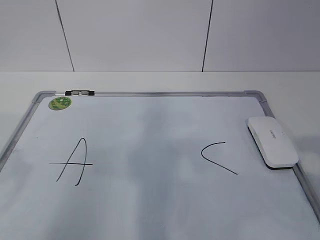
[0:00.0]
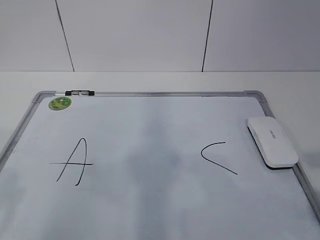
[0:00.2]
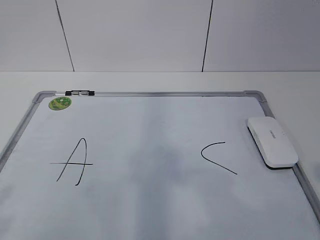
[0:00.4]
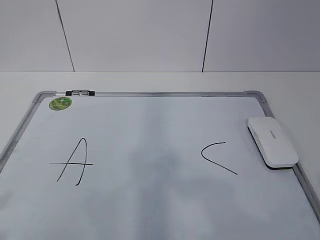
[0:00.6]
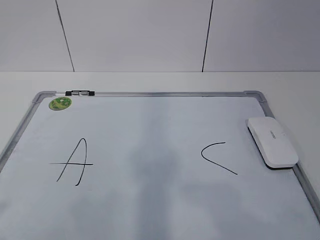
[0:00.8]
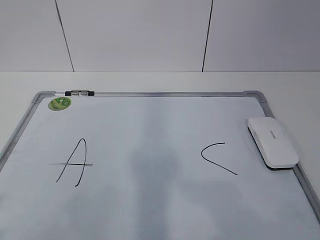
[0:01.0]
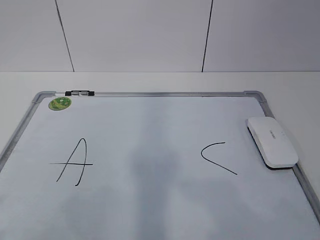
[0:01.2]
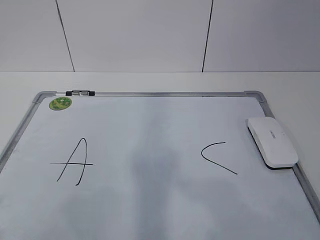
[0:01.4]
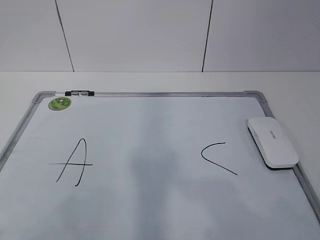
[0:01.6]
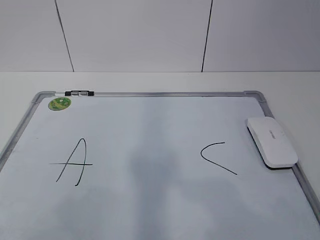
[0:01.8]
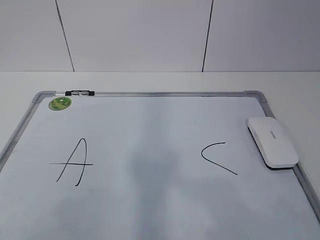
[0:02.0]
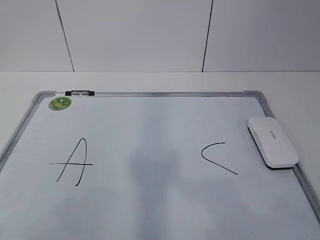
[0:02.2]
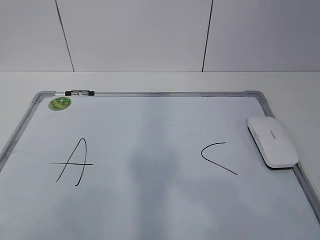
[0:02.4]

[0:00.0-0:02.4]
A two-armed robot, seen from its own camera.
Task of the whole recording: pick up the eraser on the blackboard and erase the letter "B".
0:01.2 to 0:02.4: The two grippers keep their place.

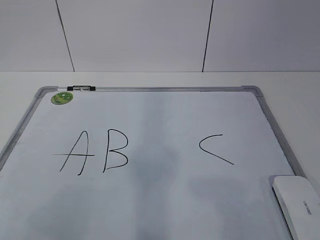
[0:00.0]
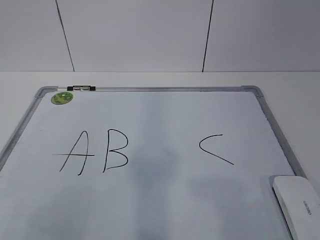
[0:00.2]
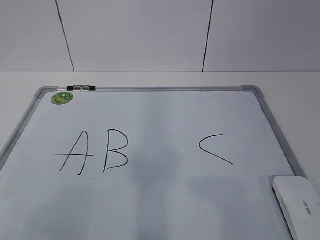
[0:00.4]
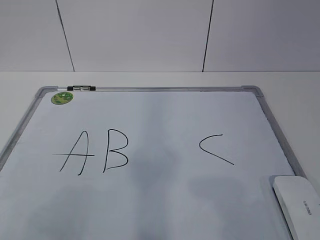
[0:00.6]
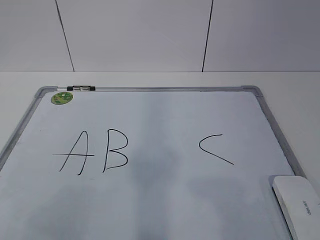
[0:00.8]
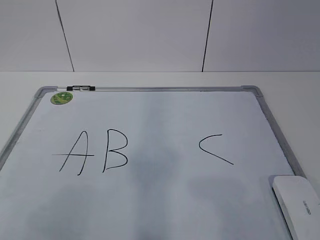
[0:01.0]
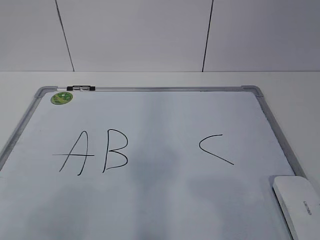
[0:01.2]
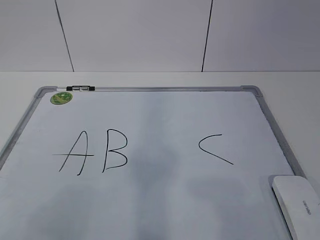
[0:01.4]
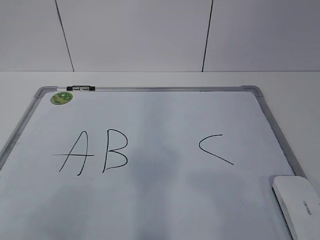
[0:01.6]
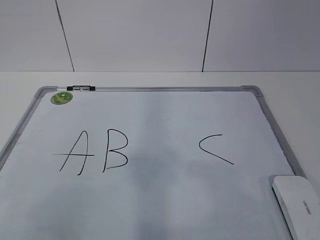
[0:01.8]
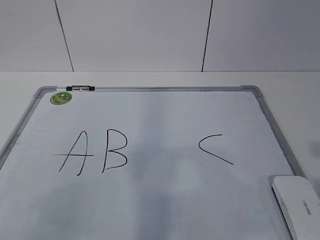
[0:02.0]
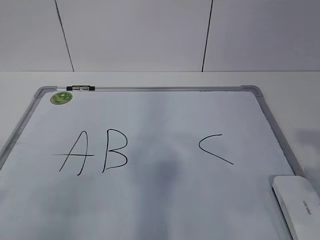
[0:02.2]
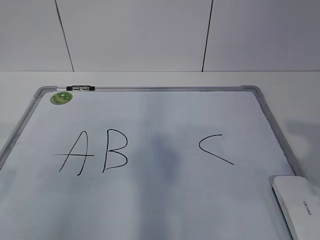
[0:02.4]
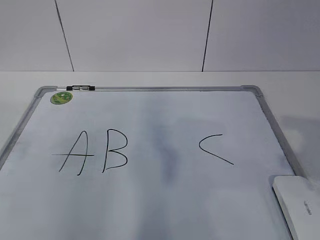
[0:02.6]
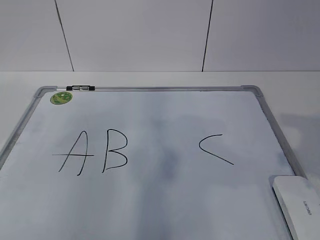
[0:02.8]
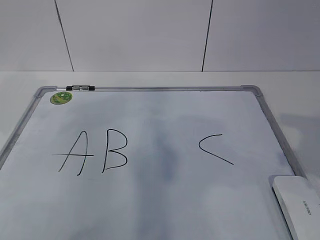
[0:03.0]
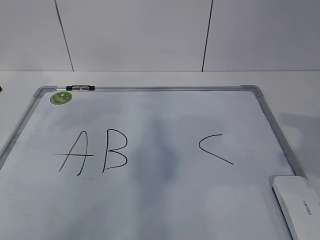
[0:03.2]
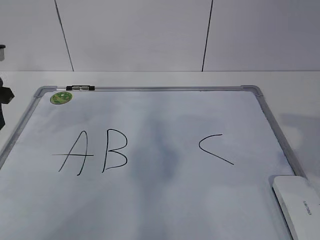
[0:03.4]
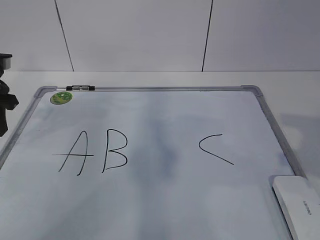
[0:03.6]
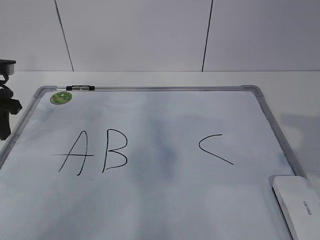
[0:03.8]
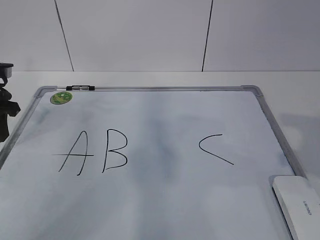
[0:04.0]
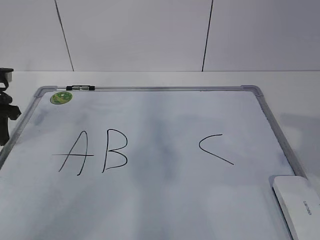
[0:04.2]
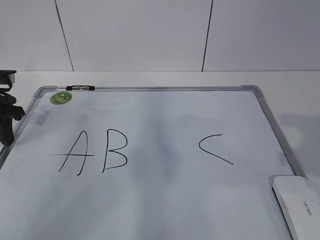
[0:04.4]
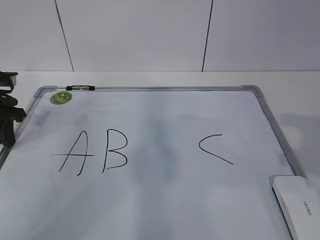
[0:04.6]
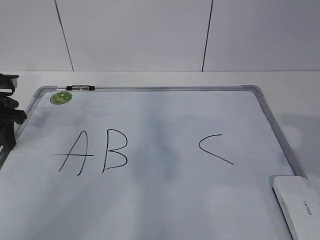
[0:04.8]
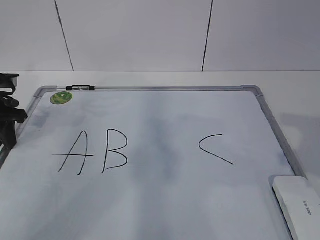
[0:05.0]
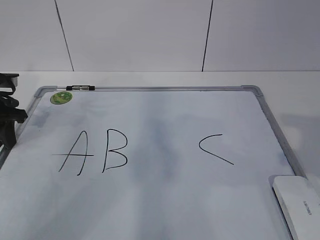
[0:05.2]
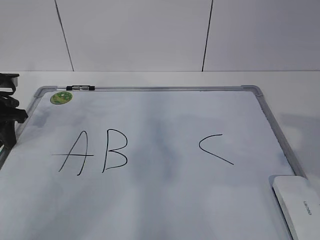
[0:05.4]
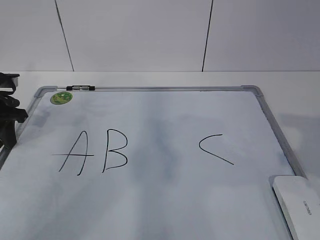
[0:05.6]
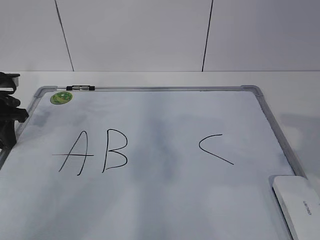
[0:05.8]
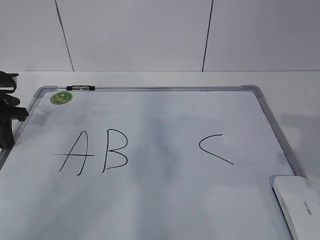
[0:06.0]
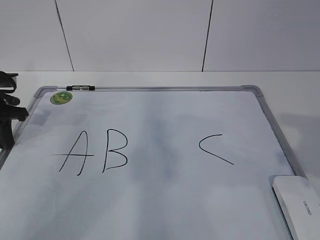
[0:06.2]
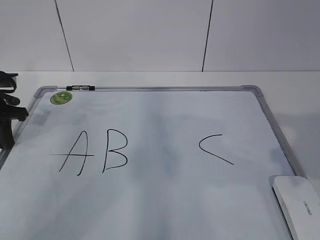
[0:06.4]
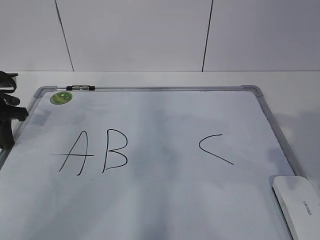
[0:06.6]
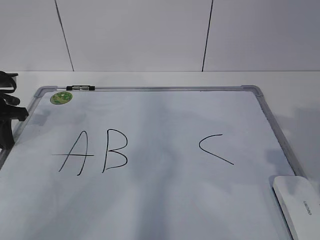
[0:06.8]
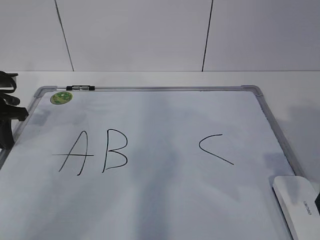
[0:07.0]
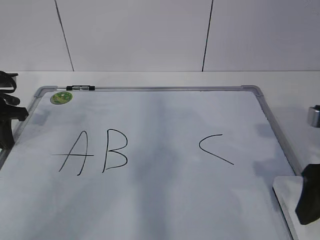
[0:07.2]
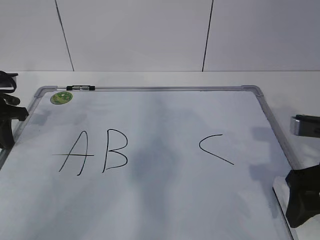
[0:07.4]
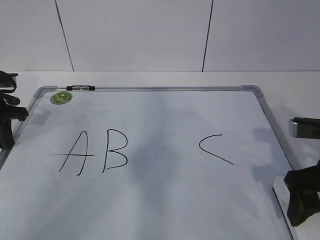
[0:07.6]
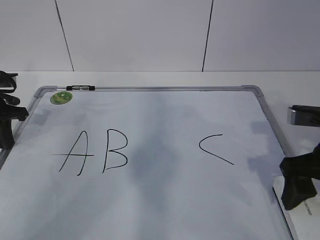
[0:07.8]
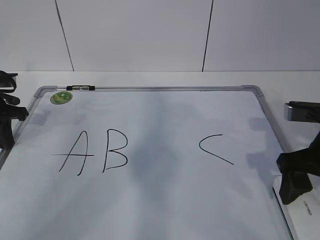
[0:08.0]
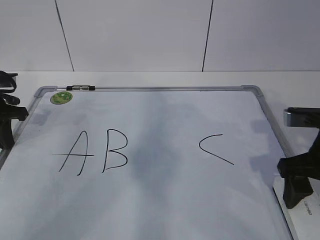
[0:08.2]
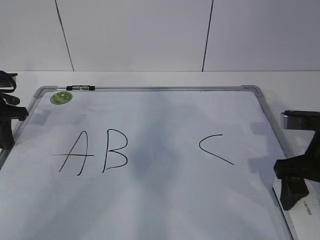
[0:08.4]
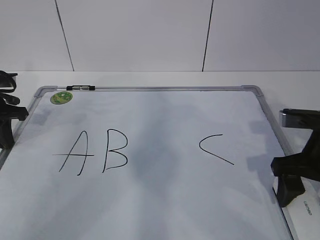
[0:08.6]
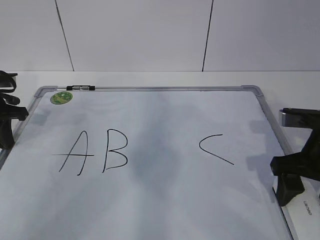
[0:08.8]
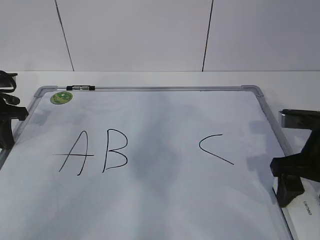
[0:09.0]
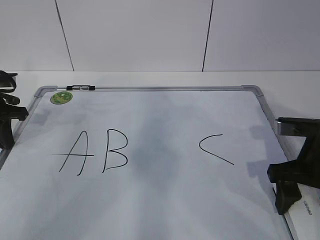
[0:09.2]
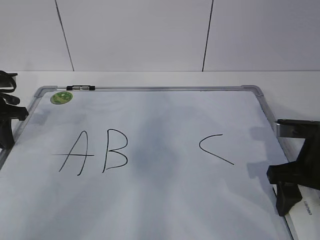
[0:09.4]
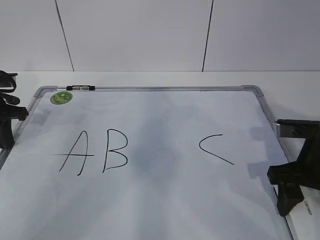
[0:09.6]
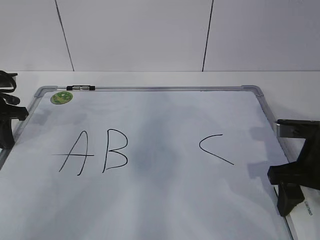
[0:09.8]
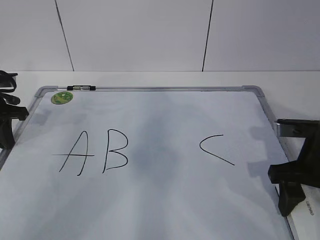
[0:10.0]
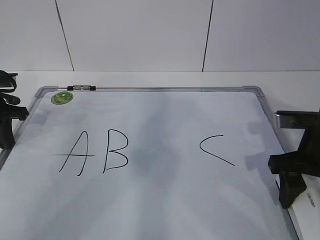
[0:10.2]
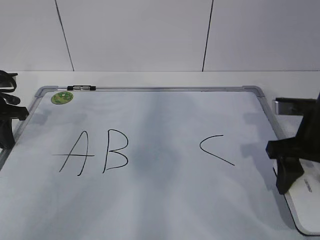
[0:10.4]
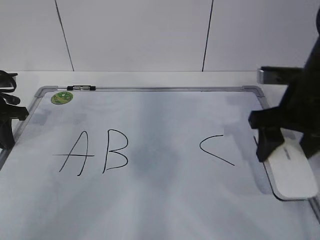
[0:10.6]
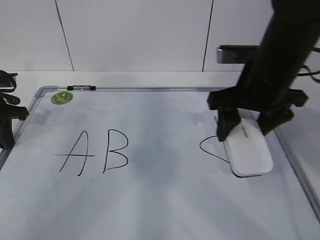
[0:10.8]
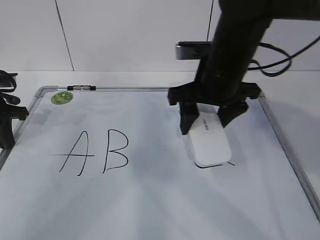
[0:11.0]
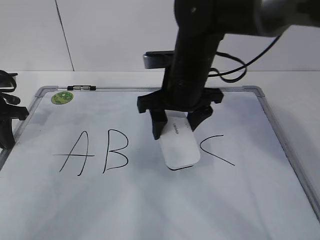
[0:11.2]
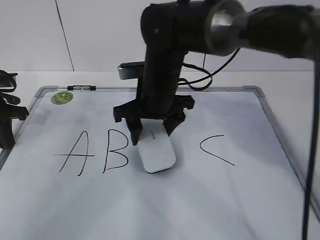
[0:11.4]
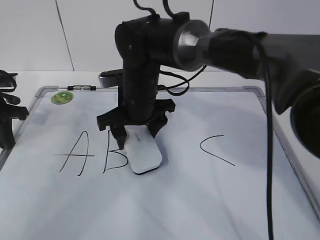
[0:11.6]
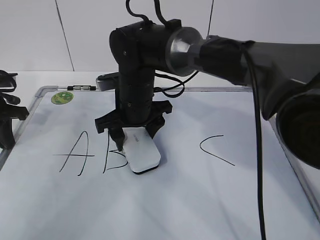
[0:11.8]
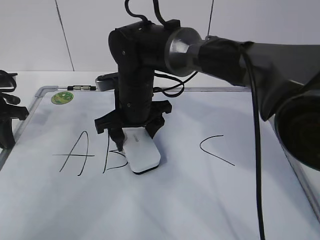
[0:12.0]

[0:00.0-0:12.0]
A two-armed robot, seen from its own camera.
Task of the whole recording: pick up the eraser on the blackboard and erase the letter "B".
Step, 0:05.2 to 0:08.0: Grab the eraser with your right hand.
0:03.0 to 0:04.4: The left gripper shifts approximately 15 cm downward and forward.
0:04.4 to 0:06.0: The left gripper closes.
0:06.0 to 0:07.6: The right gripper travels downward and forward by about 15 cm, and opens.
0:07.6 to 0:09.0: The grippers make only small movements.
0:09.0 to 0:10.4: The right gripper closes.
0:10.4 to 0:12.0: The right gripper heads to the left and forward, covering approximately 30 cm.

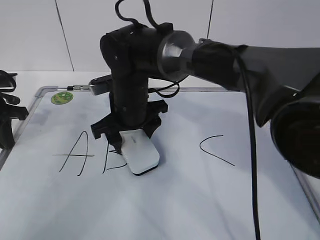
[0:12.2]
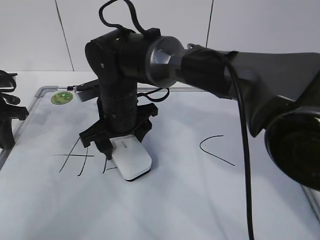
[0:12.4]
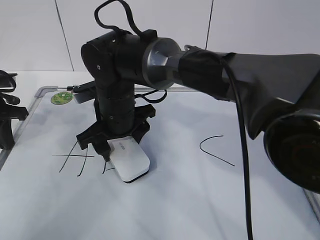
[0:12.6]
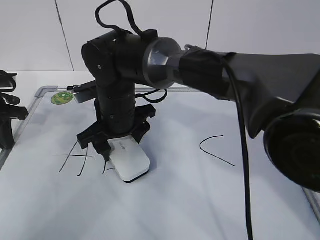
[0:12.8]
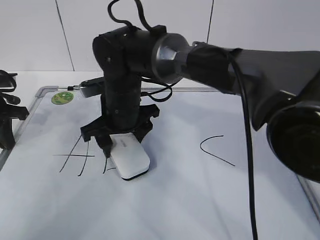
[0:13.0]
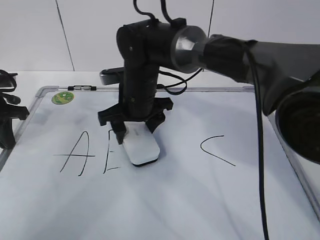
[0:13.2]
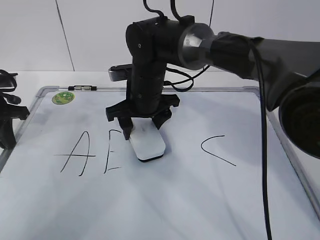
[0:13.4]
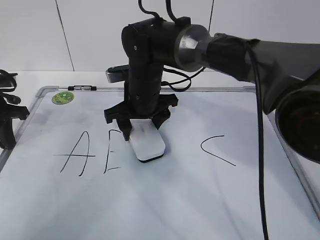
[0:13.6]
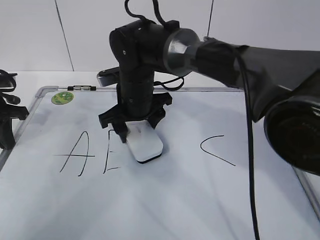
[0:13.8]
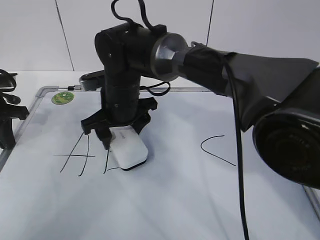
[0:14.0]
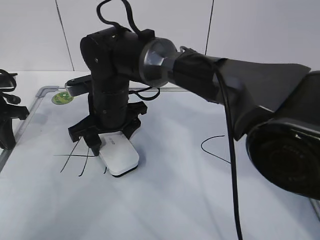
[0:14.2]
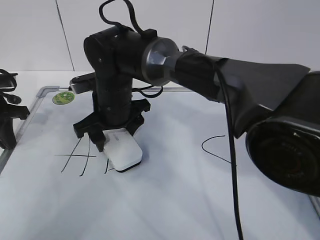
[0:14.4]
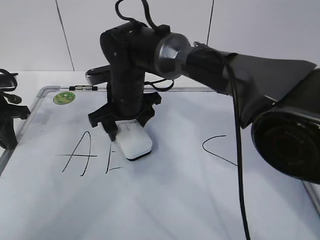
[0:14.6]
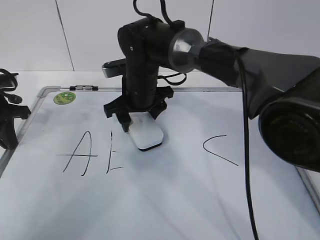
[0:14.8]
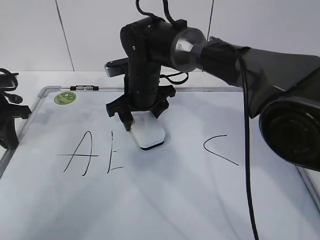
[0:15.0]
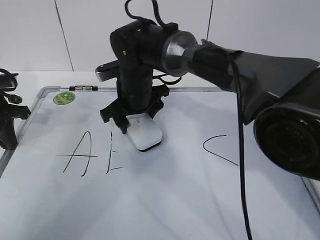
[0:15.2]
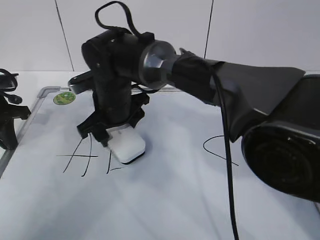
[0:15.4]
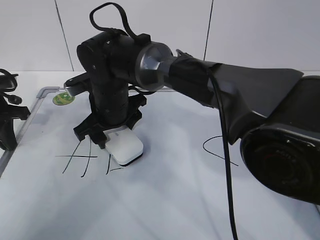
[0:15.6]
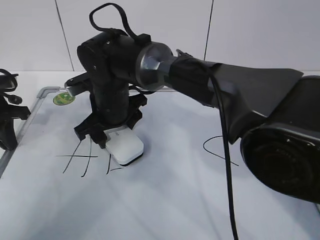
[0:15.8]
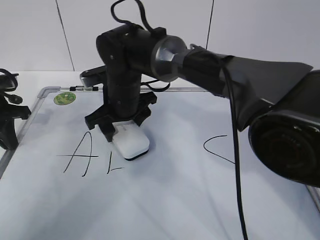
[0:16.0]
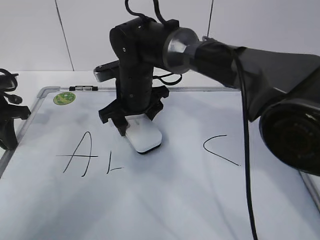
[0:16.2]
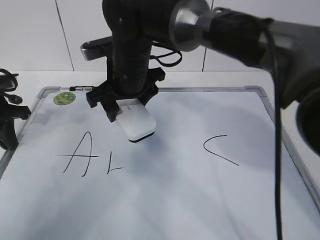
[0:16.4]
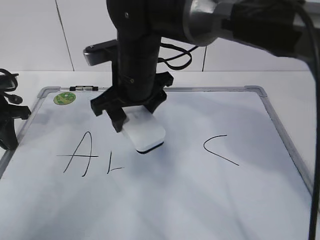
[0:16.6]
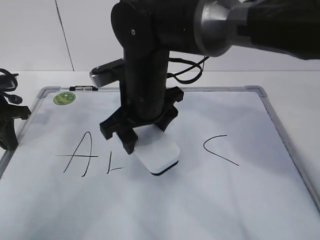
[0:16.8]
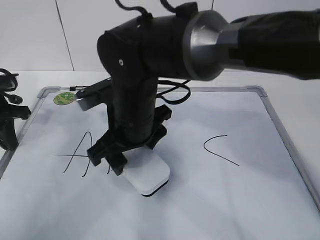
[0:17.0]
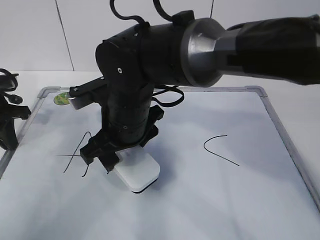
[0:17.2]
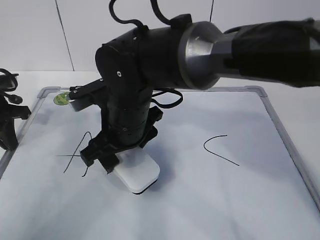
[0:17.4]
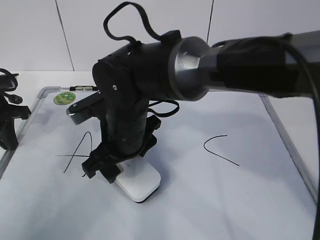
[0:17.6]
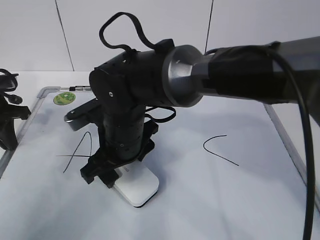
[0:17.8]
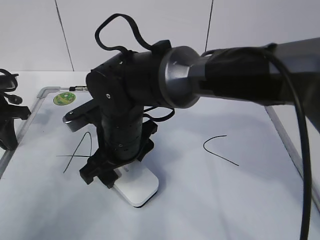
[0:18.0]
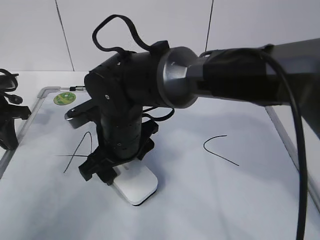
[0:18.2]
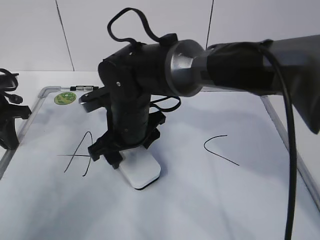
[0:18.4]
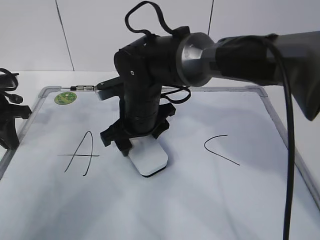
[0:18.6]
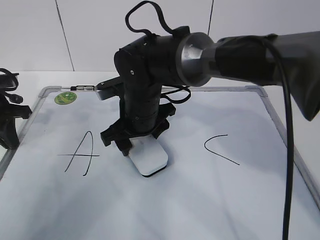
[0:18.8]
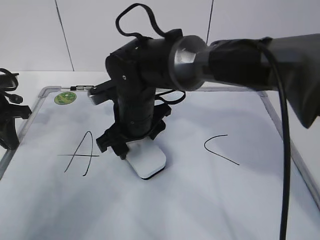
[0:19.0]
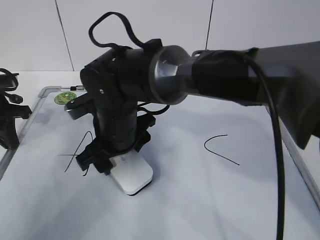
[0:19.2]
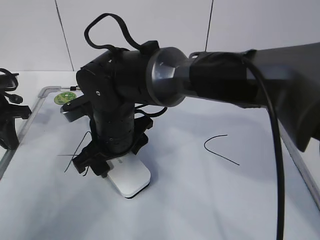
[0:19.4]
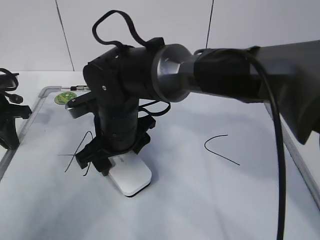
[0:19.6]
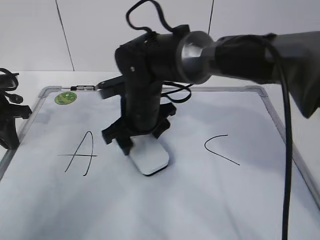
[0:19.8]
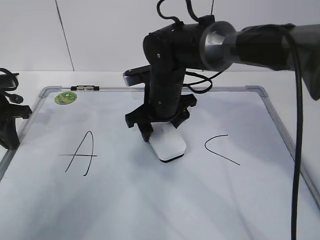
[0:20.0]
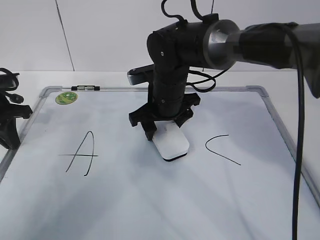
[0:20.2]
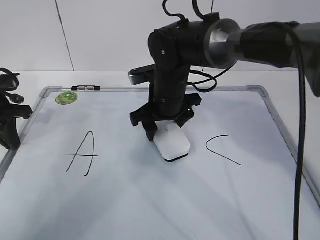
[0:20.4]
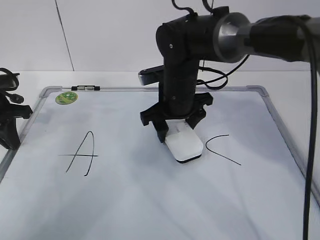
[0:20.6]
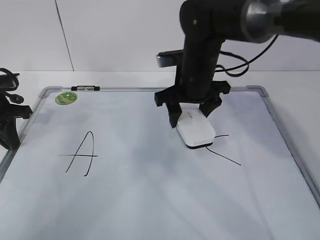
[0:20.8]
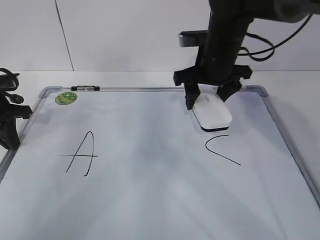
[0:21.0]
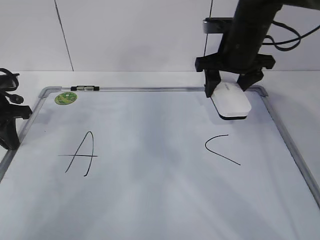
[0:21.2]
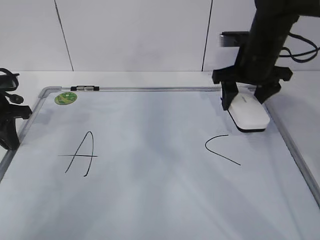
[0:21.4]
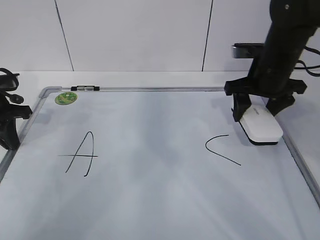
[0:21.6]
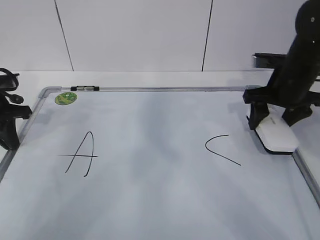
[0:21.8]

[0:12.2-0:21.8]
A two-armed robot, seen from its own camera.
Task of the whole recording: pick up the eraser on the blackboard and erase the letter "B".
Step, 0:12.2 to 0:16.8: Erase the letter B with your right hand.
Step, 0:17.0 to 0:19.6: Put down the eraser with your right hand.
0:12.2 to 0:13.8: There are only small adjustments of the grippers.
0:15.4 to 0:17.0: The right gripper travels backward by about 10 cm.
0:17.0 to 0:18.6: The right gripper goes about 5 cm forward.
0:18.6 to 0:20.2: The right gripper moves about 5 cm.
0:20.2 to 0:21.8: The right gripper moves to the right, about 20 cm.
